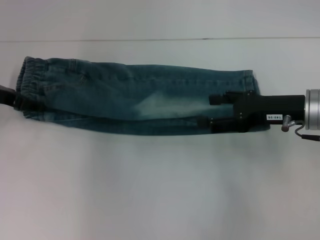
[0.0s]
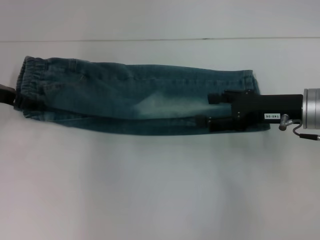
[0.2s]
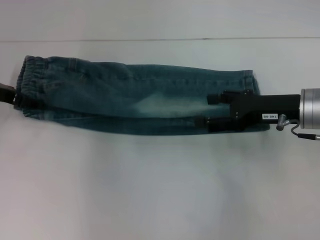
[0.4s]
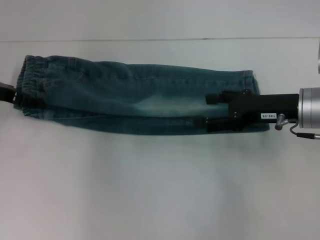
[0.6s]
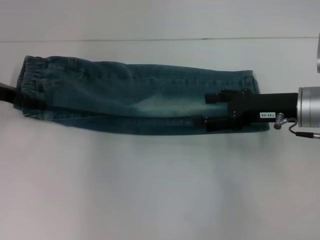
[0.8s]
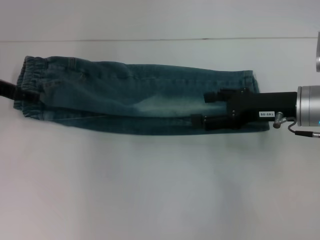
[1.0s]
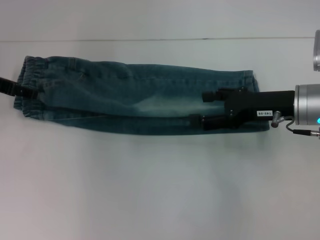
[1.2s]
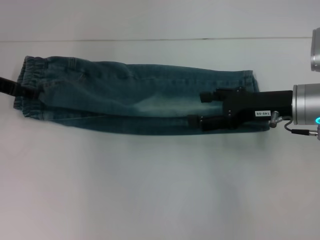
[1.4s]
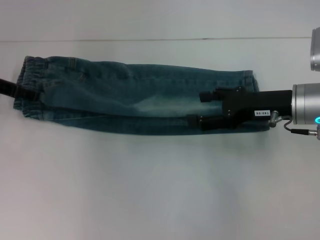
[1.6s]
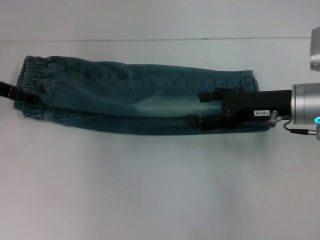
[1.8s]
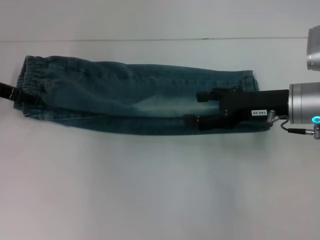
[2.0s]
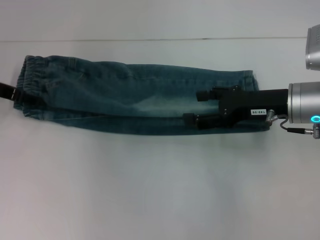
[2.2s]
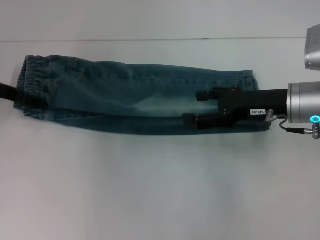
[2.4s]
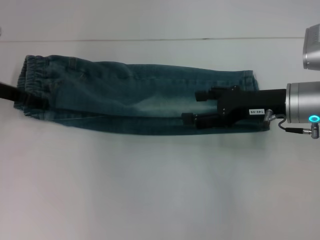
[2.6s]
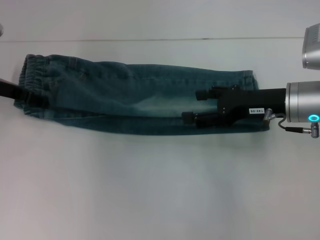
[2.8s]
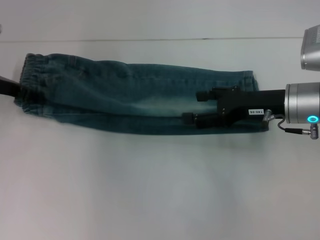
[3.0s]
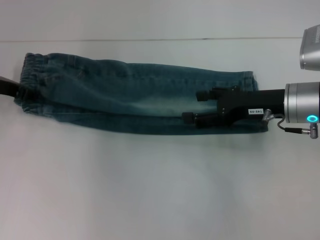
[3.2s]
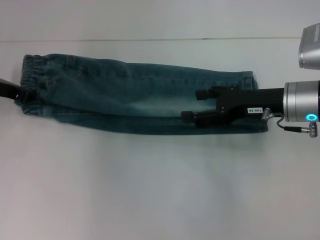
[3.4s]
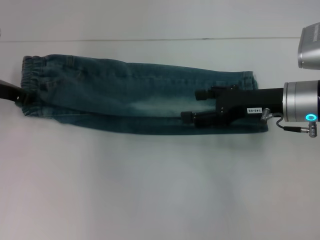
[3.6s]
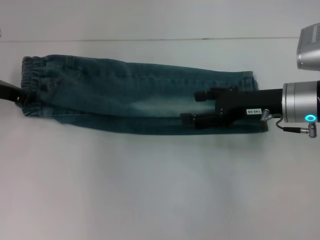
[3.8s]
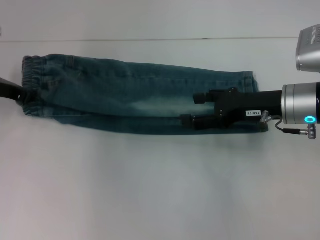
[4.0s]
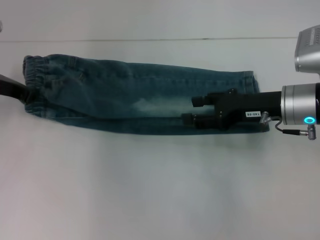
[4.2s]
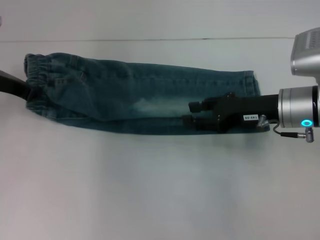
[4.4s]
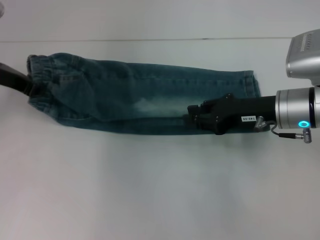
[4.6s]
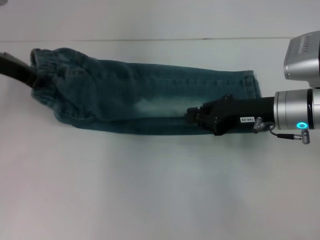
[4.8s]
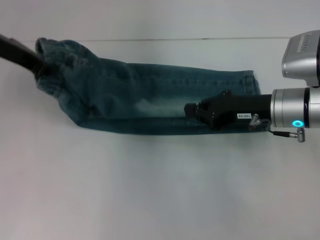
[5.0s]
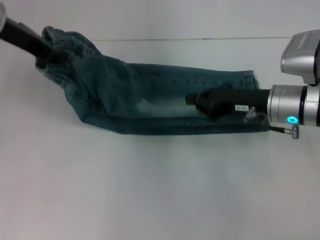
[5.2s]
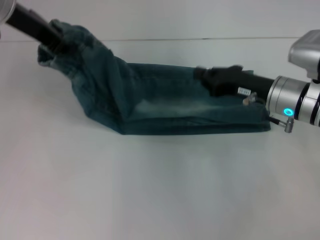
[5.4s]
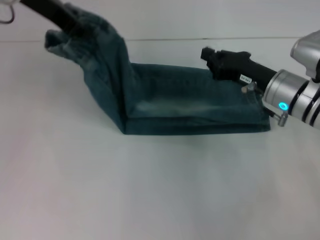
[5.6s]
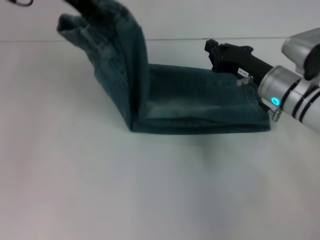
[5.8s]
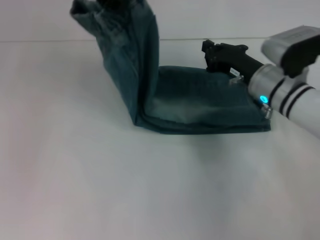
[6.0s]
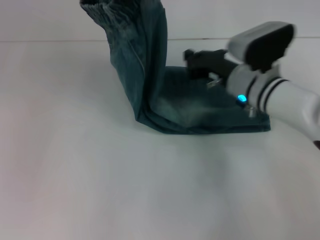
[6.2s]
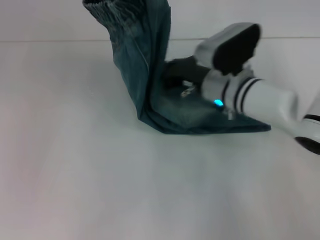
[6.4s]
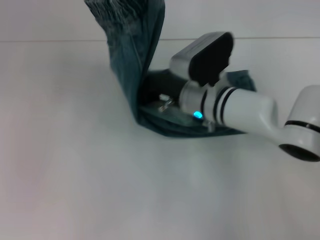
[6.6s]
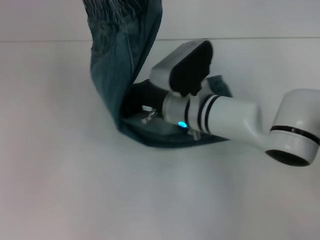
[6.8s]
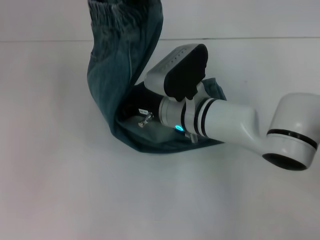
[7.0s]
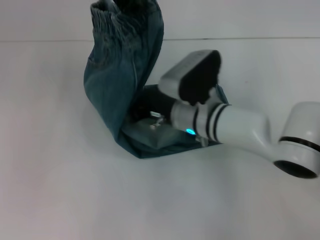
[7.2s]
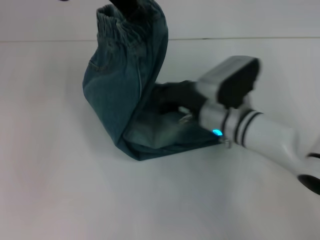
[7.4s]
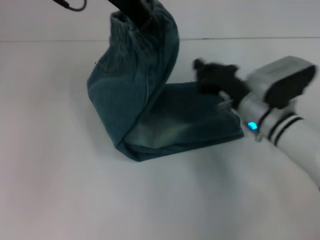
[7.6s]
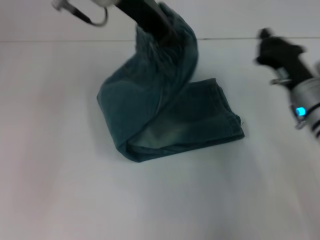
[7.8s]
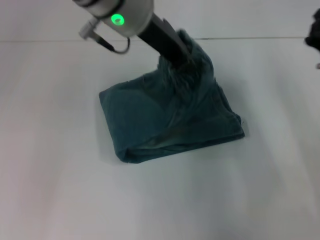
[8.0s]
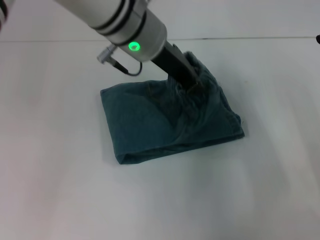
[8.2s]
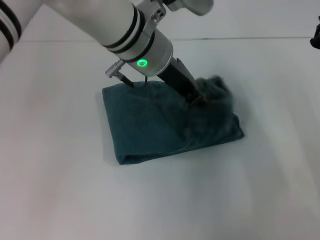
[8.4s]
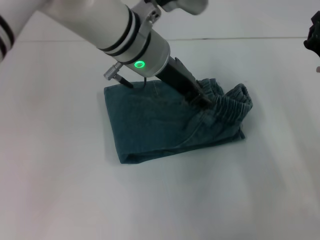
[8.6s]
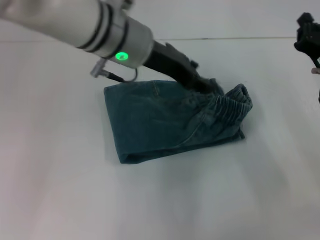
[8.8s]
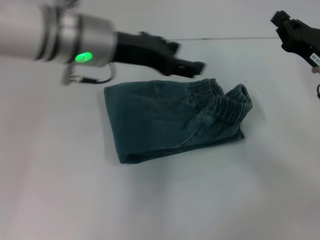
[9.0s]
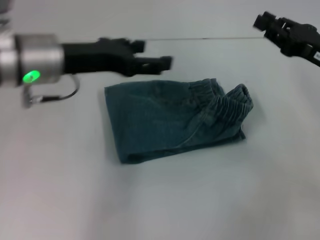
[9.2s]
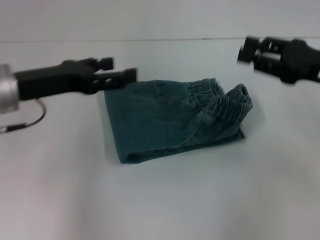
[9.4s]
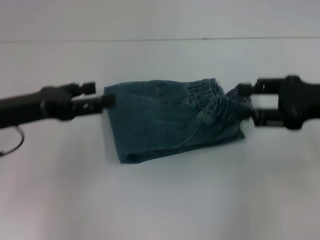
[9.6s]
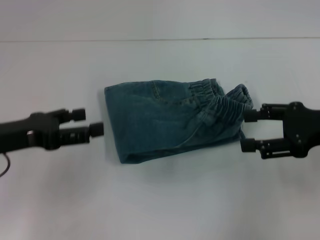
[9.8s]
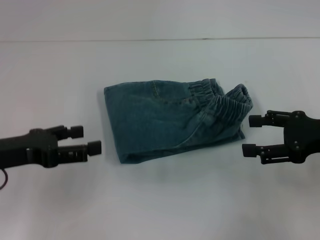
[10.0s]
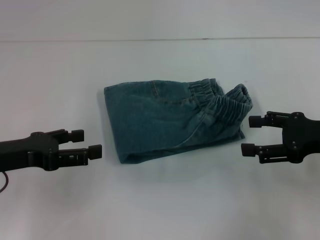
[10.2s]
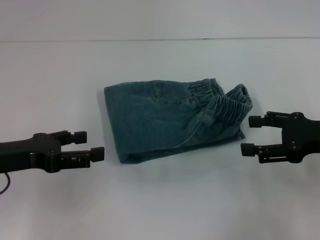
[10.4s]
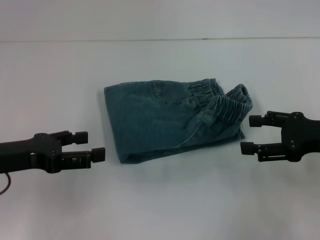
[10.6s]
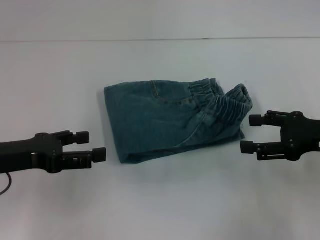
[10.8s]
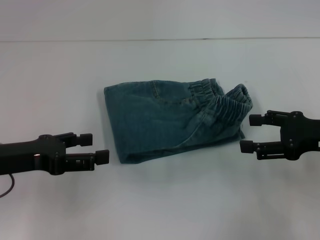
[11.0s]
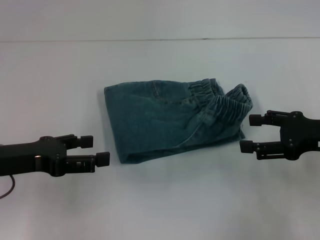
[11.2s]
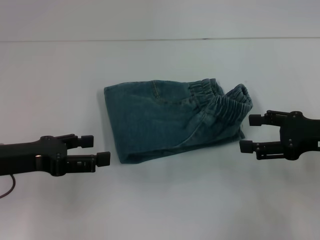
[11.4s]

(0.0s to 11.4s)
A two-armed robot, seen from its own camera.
Step, 0.0s - 3.8s: Hold the waistband with your left hand.
Step, 4.2s - 7.0s: Press the middle of the pants with your right hand.
Step, 7.2s - 8.4s: Fold to the right with your left hand.
0.0s - 2.8s: There are only small adjustments of the grippers.
2.8s - 4.2s: The left gripper closes up.
4.2s - 5.6s: The left gripper goes roughly 20 cm upward and to the right; the right gripper closes its fingers.
5.6s - 7.2s: The left gripper moves to the right, some 5 cm. The right gripper shifts roughly 15 cm to the left.
7.2s - 8.6s: The right gripper moves to the right, about 20 cm; the left gripper travels downward and to the right by approximately 15 cm.
8.6s - 10.0s: The right gripper shifts about 10 cm upward and backward, and opens up. Meanwhile the left gripper goes some 25 cm to the left and backward, and opens.
10.0s - 11.4s: Neither gripper changes place.
